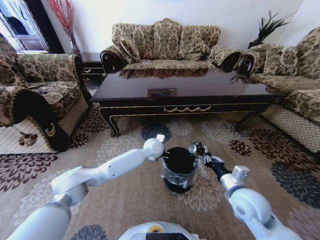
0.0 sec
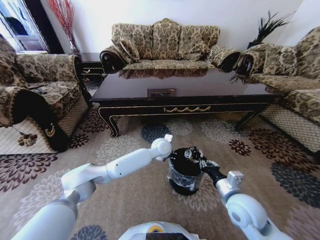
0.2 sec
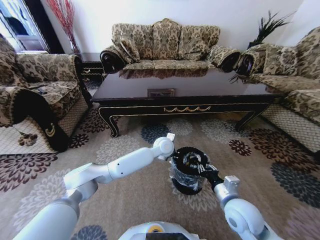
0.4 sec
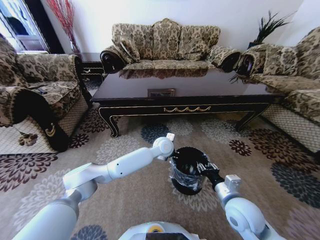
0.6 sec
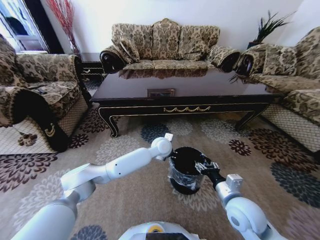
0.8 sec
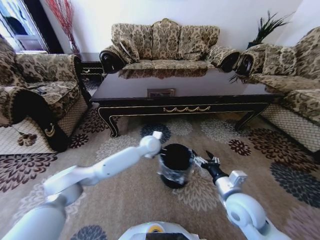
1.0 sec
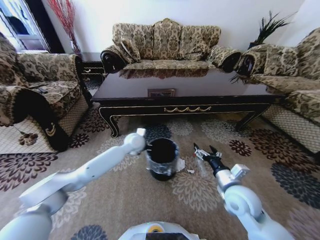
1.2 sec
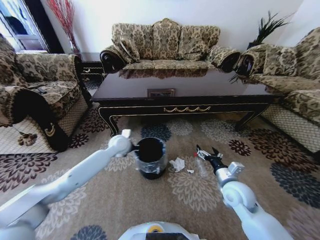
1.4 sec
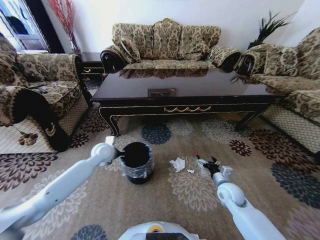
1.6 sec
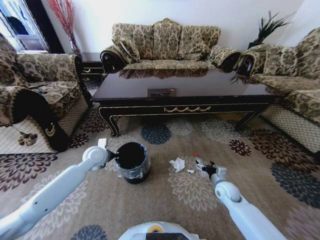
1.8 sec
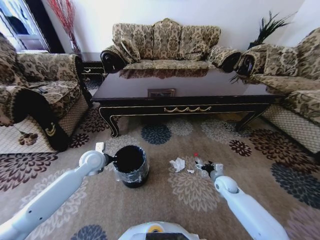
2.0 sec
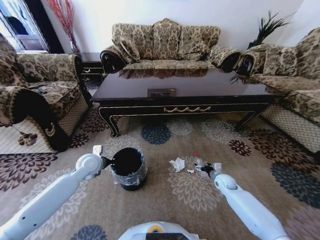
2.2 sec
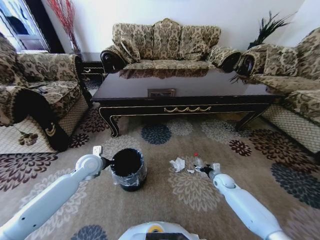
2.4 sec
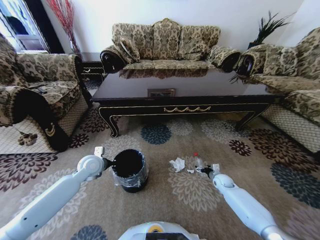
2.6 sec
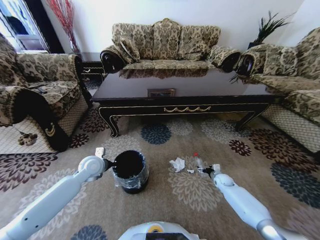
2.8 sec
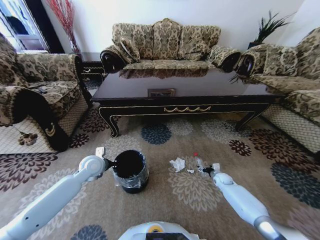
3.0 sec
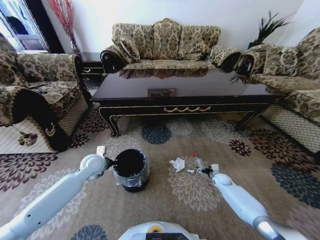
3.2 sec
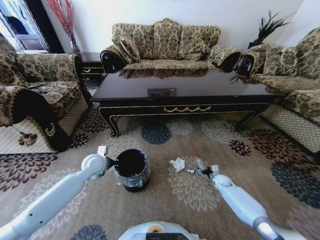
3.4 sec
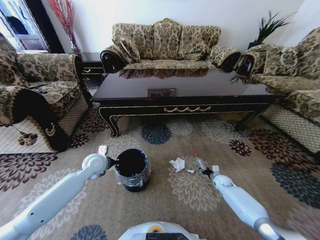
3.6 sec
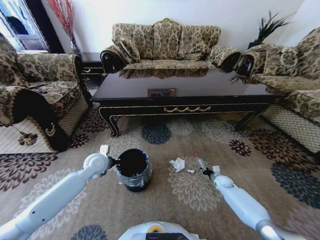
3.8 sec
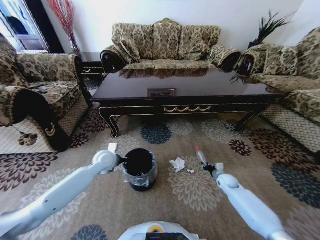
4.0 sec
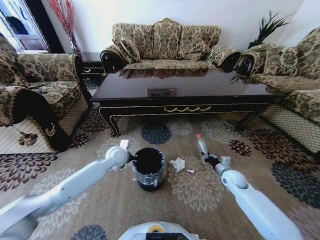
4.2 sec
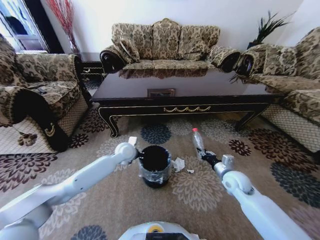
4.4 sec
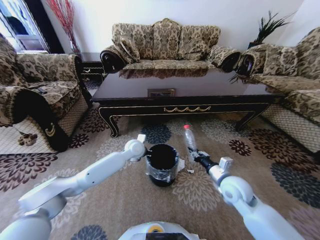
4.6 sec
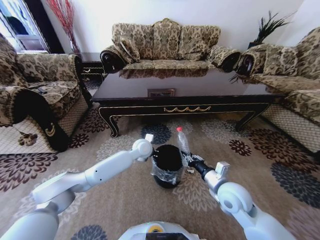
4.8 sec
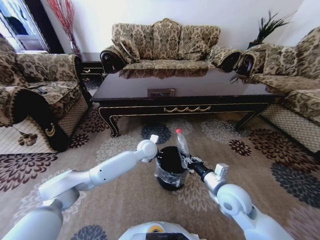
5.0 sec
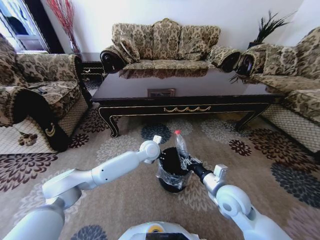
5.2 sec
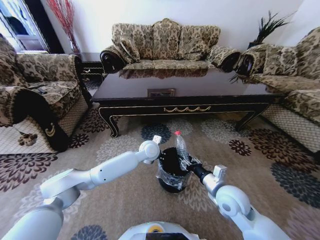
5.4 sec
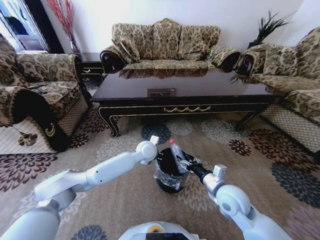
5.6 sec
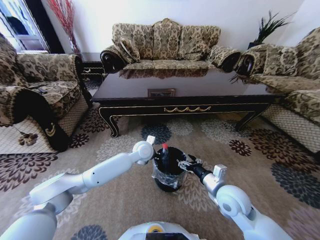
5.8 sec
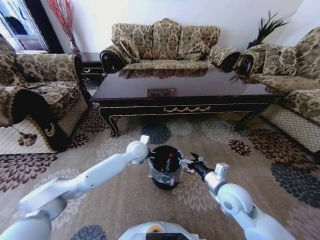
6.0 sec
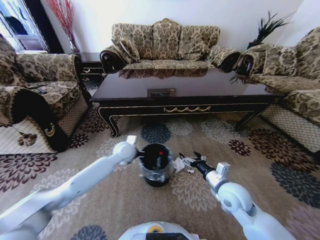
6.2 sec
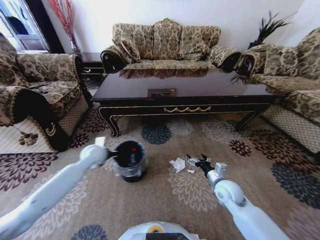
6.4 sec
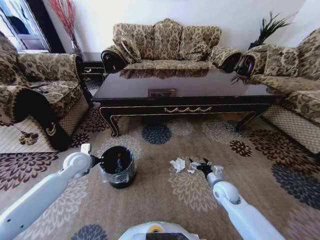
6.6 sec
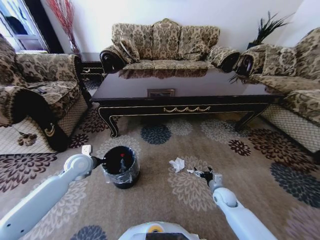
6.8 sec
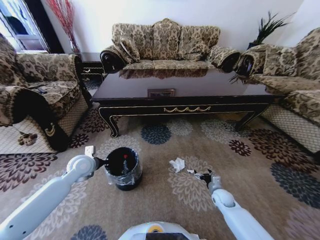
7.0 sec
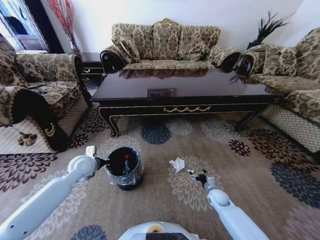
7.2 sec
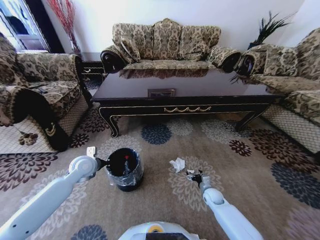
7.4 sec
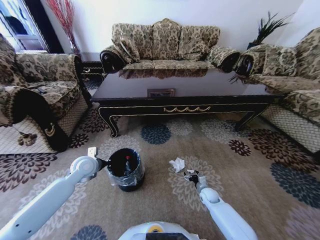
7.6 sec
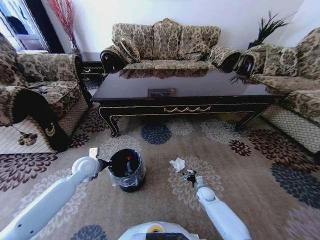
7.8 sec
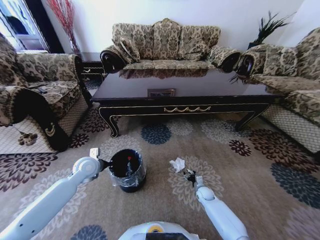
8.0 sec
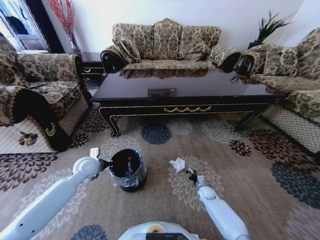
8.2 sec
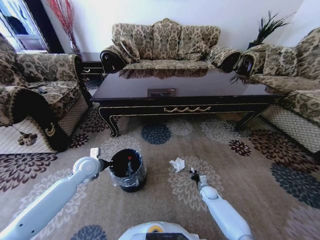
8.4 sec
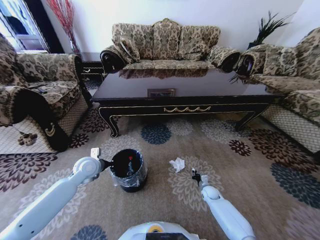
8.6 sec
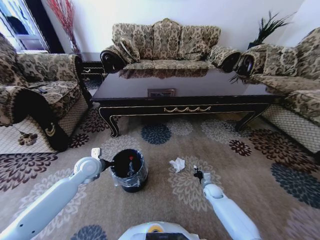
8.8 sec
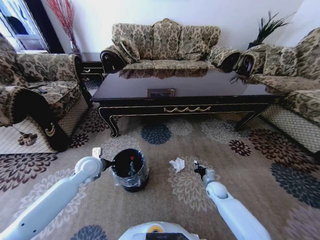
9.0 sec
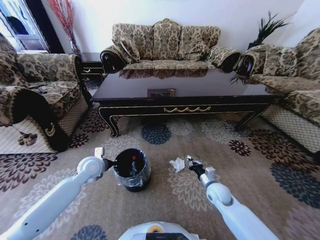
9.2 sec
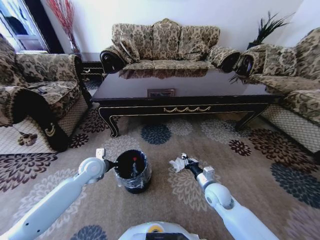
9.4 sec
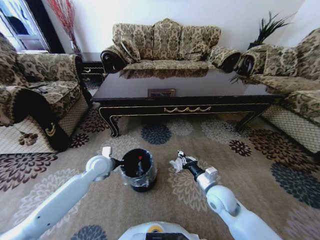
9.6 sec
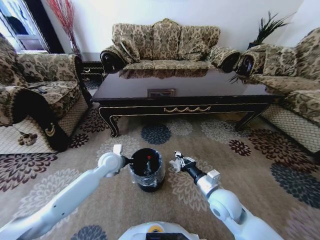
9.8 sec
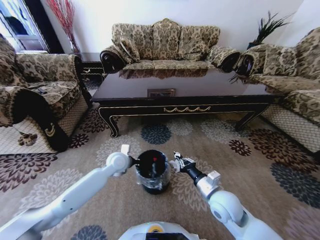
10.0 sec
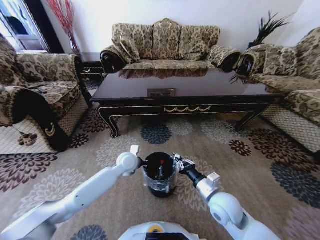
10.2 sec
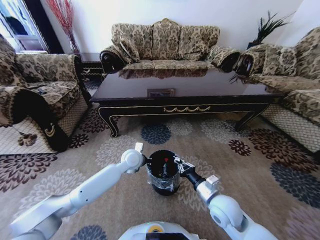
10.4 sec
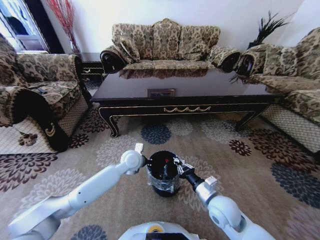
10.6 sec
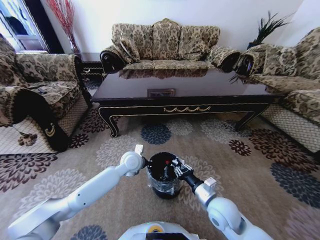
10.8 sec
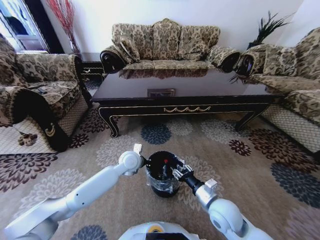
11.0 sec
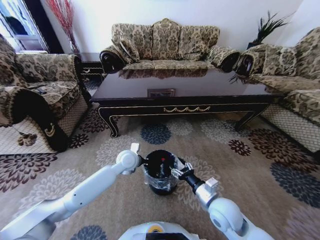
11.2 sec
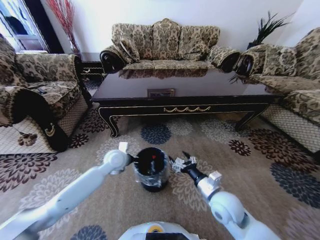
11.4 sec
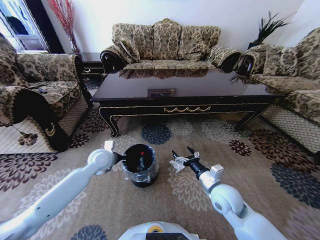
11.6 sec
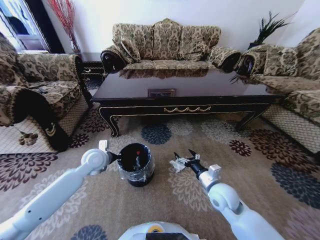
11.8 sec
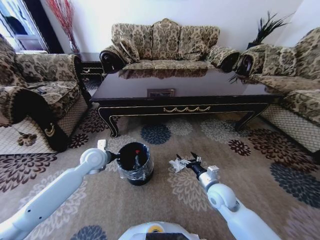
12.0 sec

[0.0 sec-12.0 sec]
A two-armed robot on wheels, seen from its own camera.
Task of the whole recording: Move to the front of the table and pick up the trash from the floor, then place it into the trash bin.
0.0 sec to 1.6 sec: The left gripper is displaced to the left by about 25 cm. The right gripper heads downward and forward, covering some 15 cm, and opens its fingers.
1.6 sec to 3.0 sec: The left gripper shifts approximately 5 cm backward. The right gripper is displaced downward, forward and to the right by roughly 20 cm.
3.0 sec to 4.4 sec: The left gripper moves to the right and forward, some 15 cm, while the right gripper shifts roughly 25 cm upward, backward and to the left, and closes.
4.4 sec to 6.0 sec: The left gripper heads to the right, covering approximately 5 cm, while the right gripper goes approximately 10 cm to the left and backward, and opens up.
6.0 sec to 7.6 sec: The left gripper is displaced to the left by some 25 cm; the right gripper heads downward, covering approximately 30 cm.
7.6 sec to 9.0 sec: The right gripper shifts approximately 5 cm upward, and closes its fingers.
9.0 sec to 10.4 sec: The left gripper heads to the right, covering approximately 20 cm. Meanwhile the right gripper shifts about 25 cm upward, backward and to the left.
10.4 sec to 12.0 sec: The right gripper shifts some 5 cm forward, and opens up. Meanwhile the left gripper travels to the left by about 15 cm.

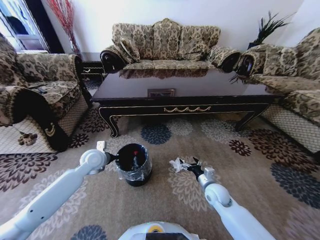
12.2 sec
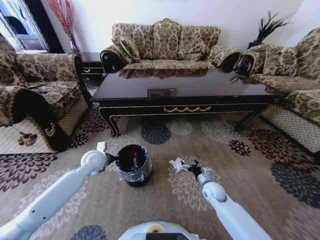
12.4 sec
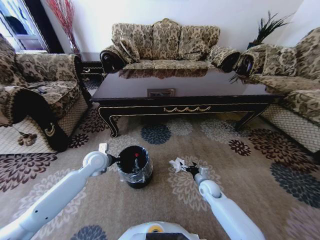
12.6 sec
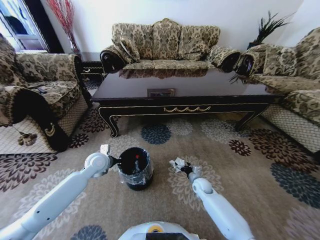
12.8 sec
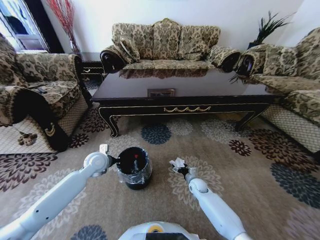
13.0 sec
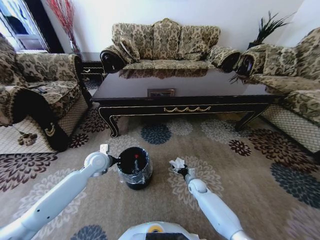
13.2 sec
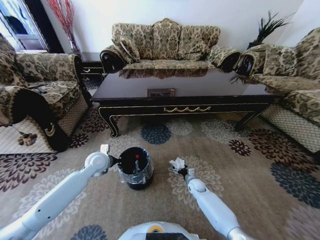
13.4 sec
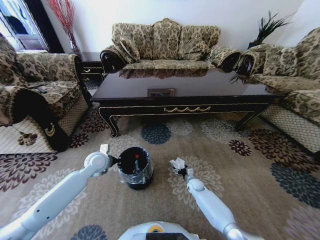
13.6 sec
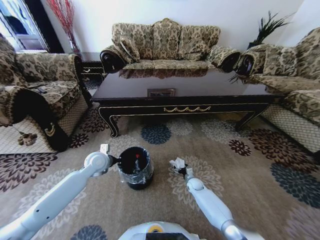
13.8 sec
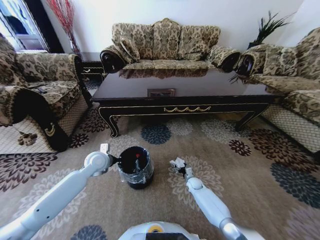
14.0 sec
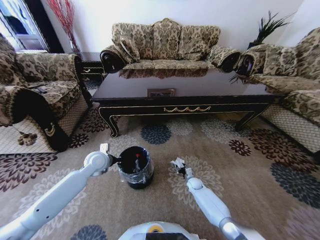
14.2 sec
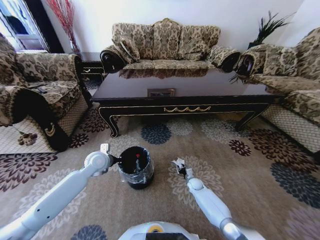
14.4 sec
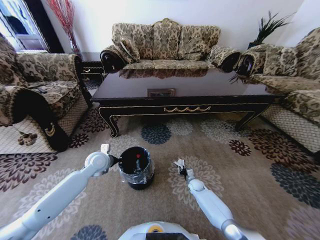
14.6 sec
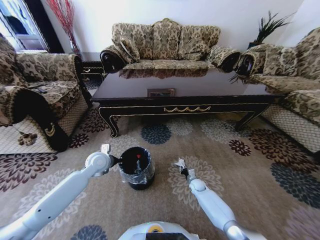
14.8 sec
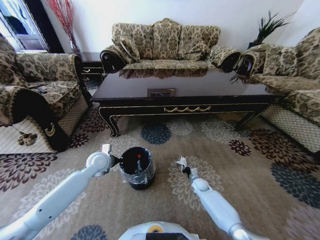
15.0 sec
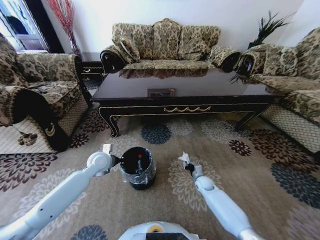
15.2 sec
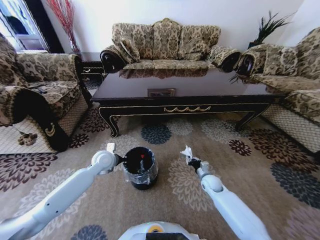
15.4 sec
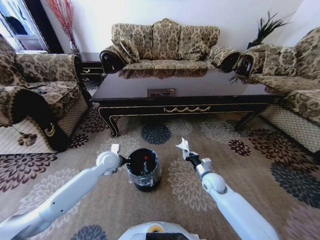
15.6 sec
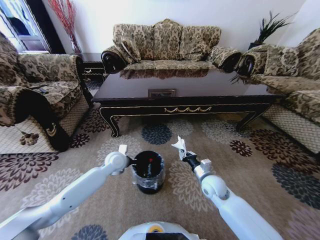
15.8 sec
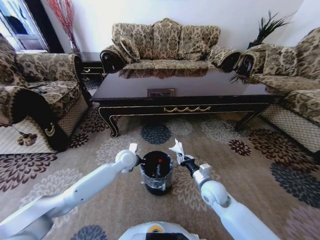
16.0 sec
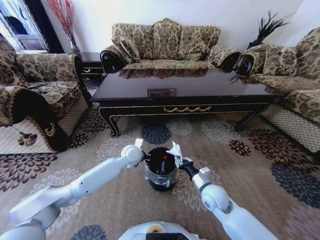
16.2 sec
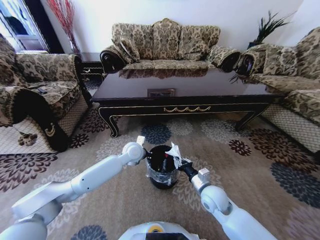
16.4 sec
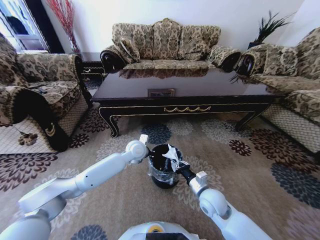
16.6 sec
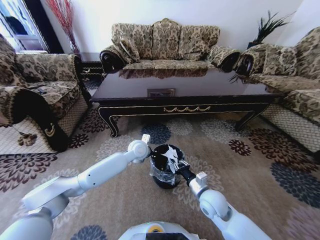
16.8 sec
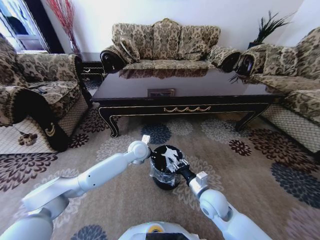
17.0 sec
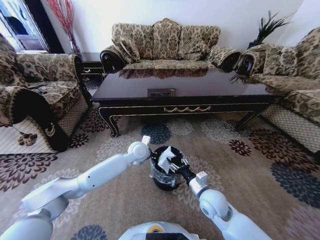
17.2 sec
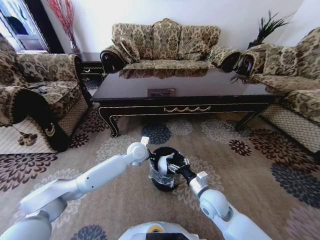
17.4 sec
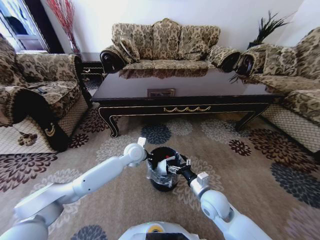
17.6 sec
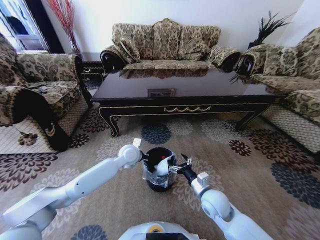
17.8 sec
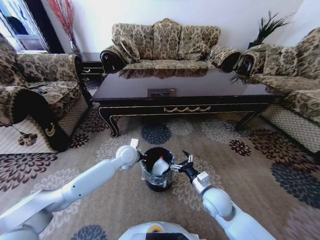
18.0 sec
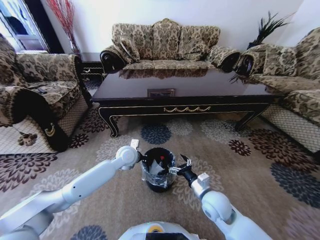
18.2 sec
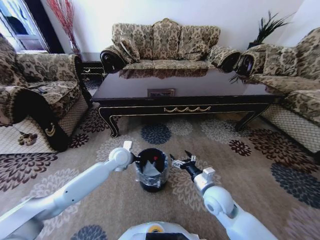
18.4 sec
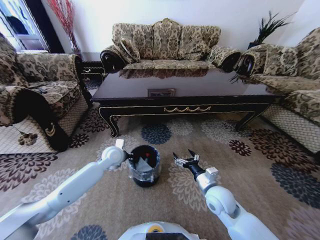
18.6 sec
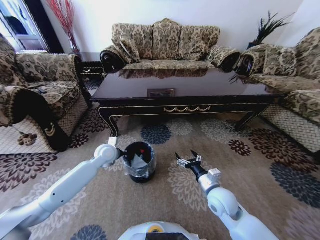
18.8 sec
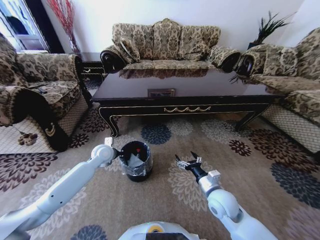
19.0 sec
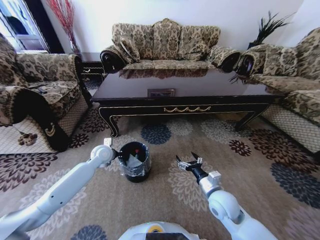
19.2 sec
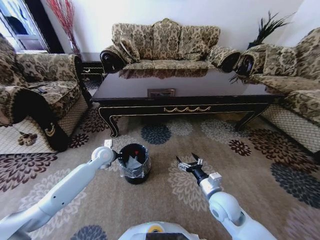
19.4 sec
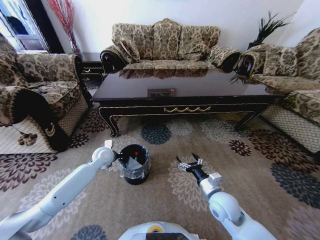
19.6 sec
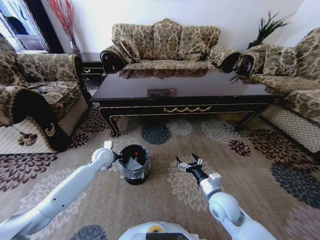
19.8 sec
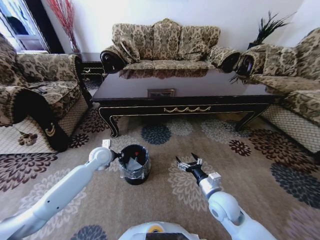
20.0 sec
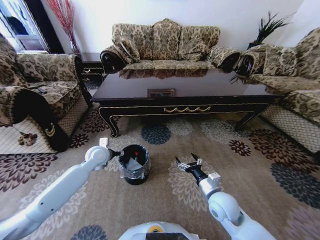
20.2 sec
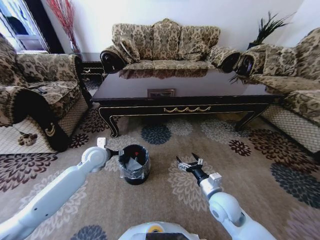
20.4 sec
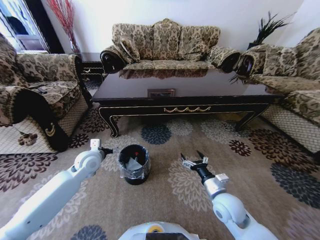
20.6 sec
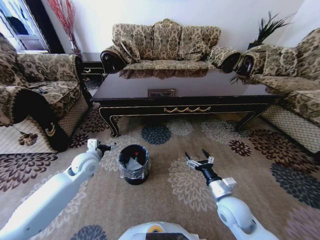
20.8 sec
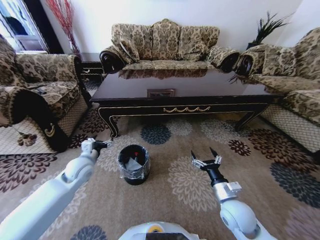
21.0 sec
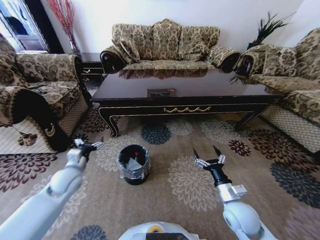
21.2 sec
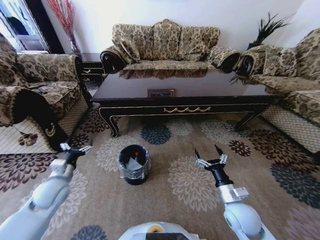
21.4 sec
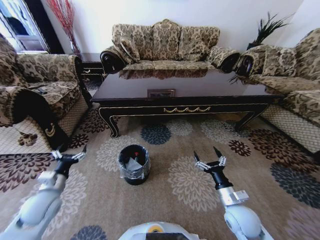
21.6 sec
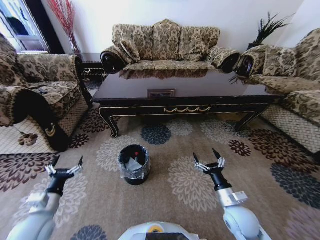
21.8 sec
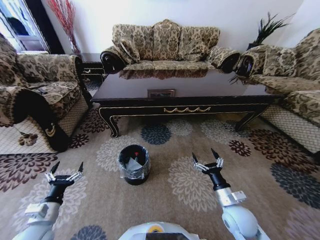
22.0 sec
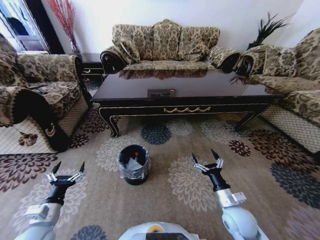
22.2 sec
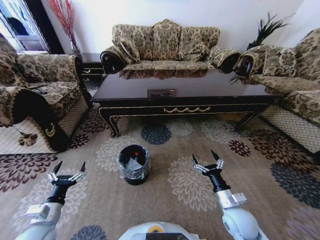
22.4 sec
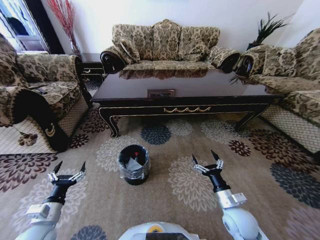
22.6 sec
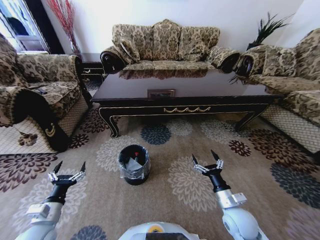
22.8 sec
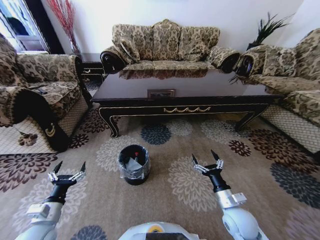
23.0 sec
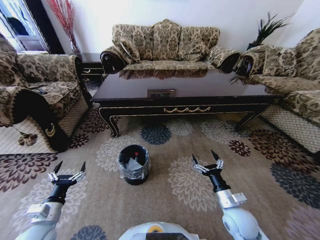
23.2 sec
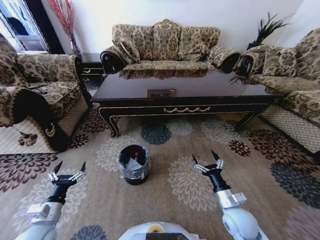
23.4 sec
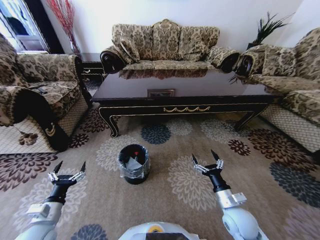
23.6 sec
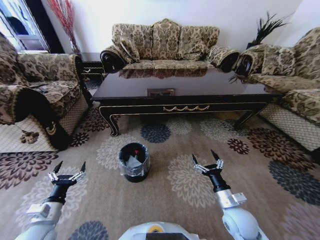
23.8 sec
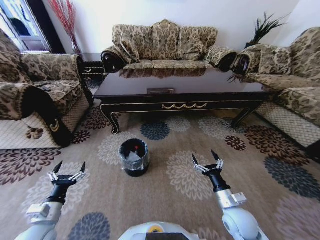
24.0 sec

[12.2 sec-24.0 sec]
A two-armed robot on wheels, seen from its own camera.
Task of the whole recording: Move to the front of the table and pick up the trash from the floor, then place it into the trash bin.
12.2 sec to 13.6 sec: The right gripper travels downward and forward by about 20 cm.
13.6 sec to 15.2 sec: The right gripper ends up approximately 5 cm from where it was, and closes its fingers.
15.2 sec to 16.6 sec: The left gripper shifts about 15 cm to the right. Meanwhile the right gripper goes roughly 25 cm upward, backward and to the left.
16.6 sec to 18.2 sec: The right gripper opens.
18.2 sec to 19.6 sec: The left gripper is displaced to the left by approximately 10 cm.
19.6 sec to 21.0 sec: The left gripper is displaced backward and to the left by approximately 10 cm, and opens its fingers.
21.0 sec to 22.6 sec: The left gripper is displaced backward by roughly 20 cm.
